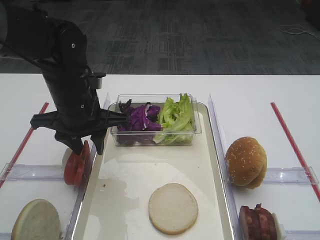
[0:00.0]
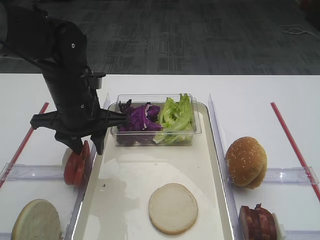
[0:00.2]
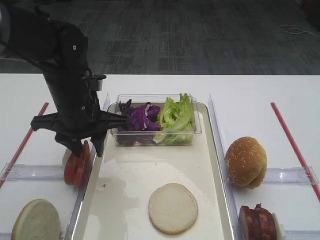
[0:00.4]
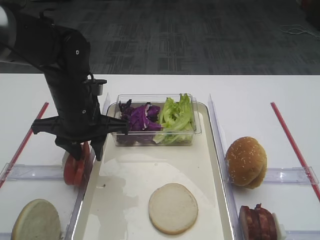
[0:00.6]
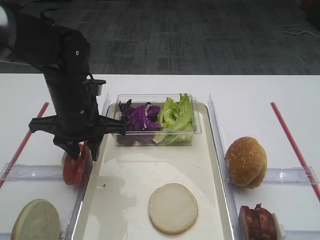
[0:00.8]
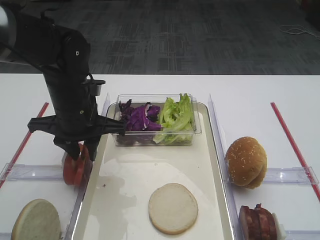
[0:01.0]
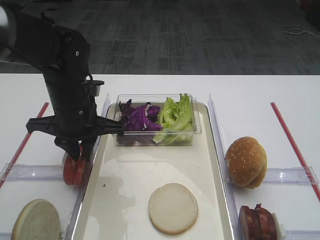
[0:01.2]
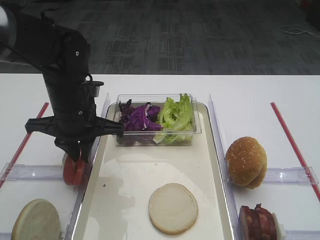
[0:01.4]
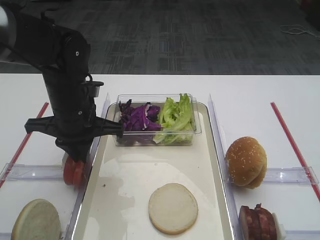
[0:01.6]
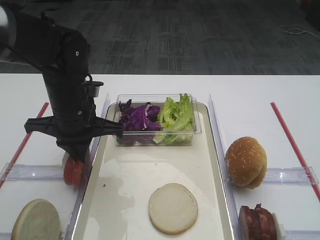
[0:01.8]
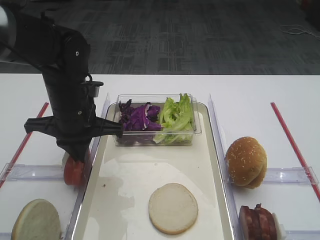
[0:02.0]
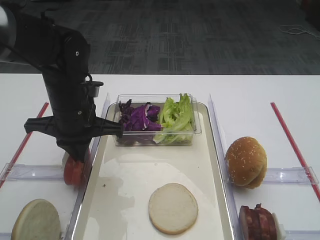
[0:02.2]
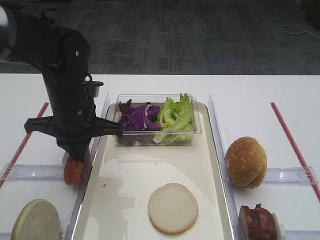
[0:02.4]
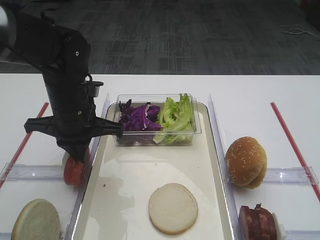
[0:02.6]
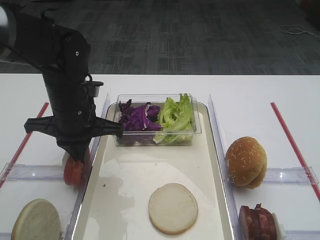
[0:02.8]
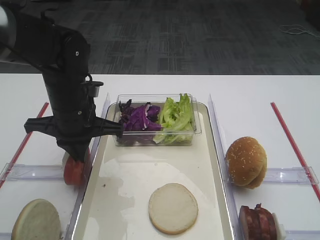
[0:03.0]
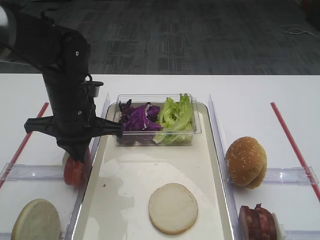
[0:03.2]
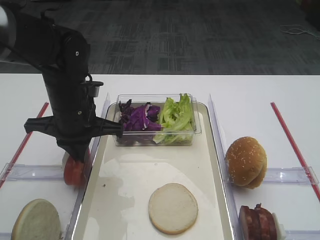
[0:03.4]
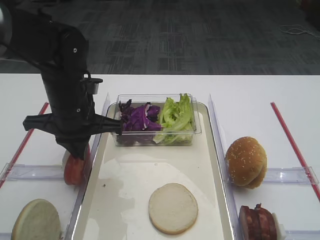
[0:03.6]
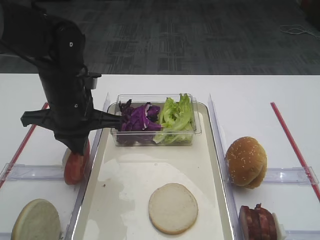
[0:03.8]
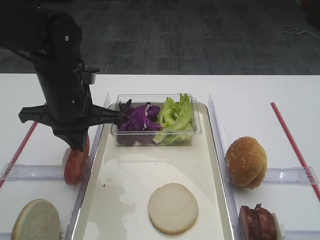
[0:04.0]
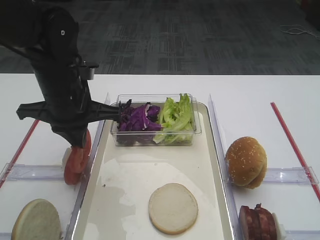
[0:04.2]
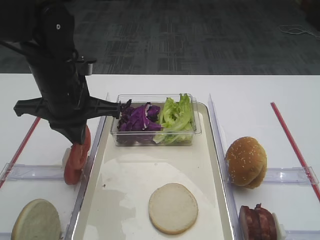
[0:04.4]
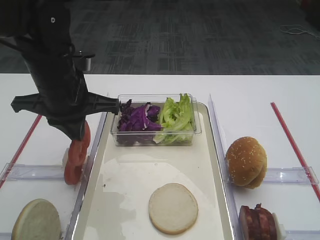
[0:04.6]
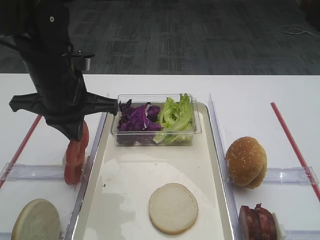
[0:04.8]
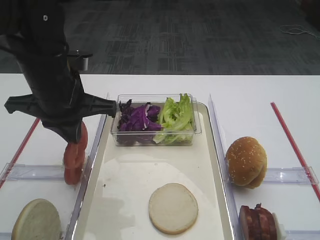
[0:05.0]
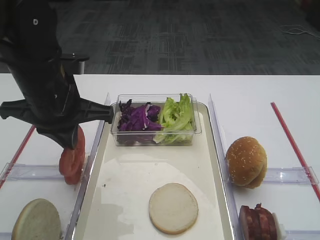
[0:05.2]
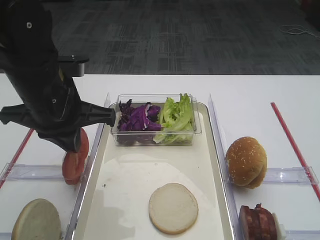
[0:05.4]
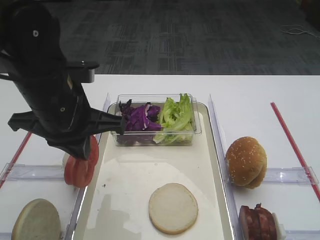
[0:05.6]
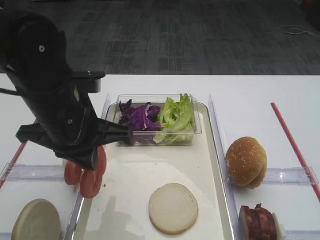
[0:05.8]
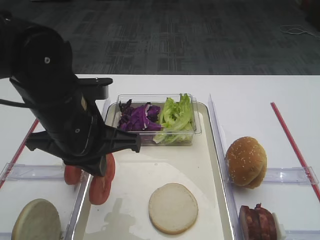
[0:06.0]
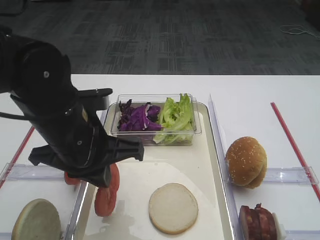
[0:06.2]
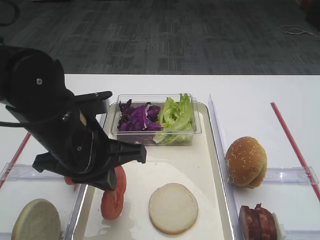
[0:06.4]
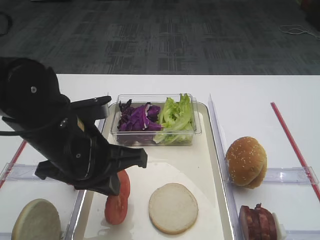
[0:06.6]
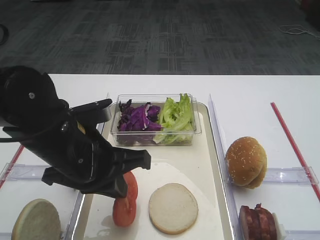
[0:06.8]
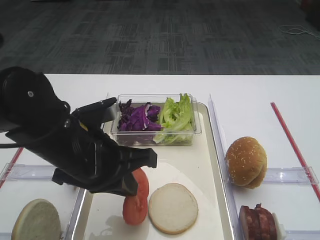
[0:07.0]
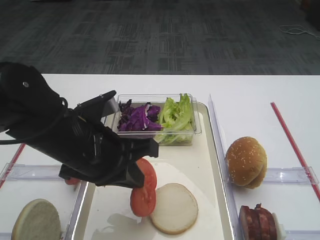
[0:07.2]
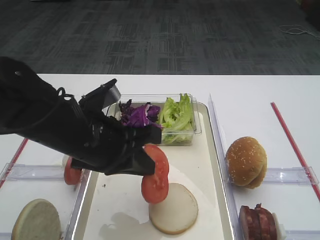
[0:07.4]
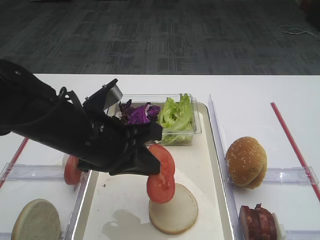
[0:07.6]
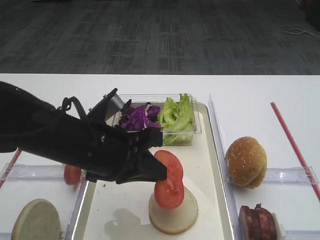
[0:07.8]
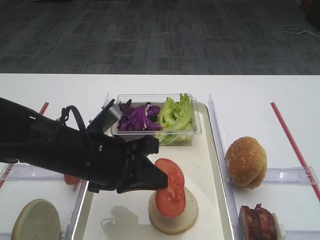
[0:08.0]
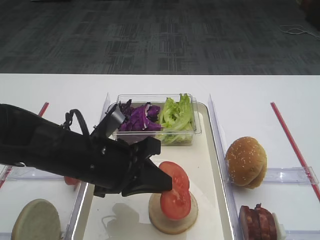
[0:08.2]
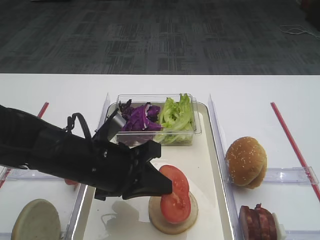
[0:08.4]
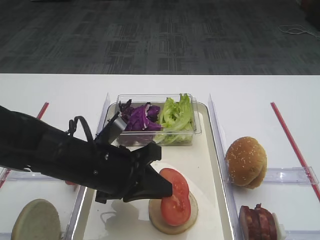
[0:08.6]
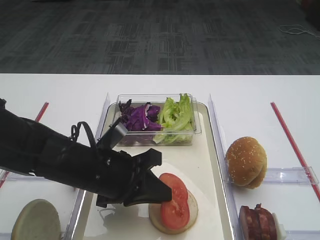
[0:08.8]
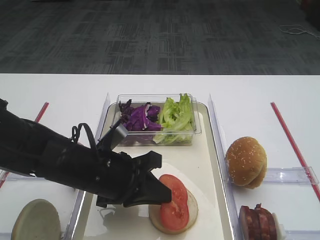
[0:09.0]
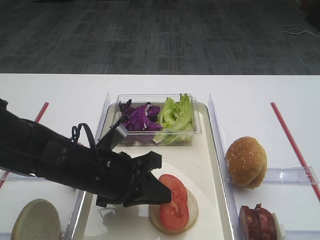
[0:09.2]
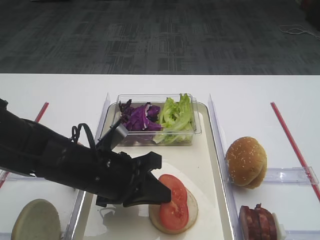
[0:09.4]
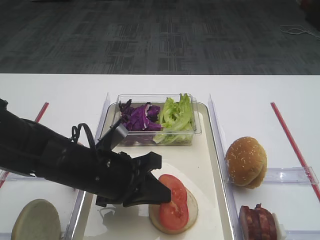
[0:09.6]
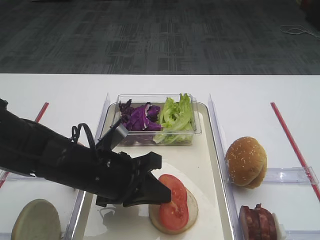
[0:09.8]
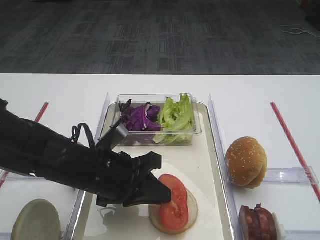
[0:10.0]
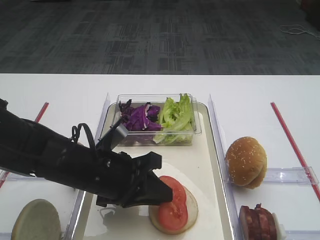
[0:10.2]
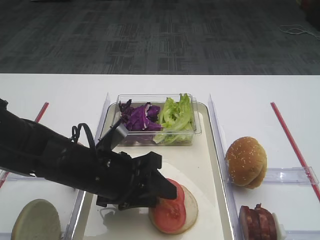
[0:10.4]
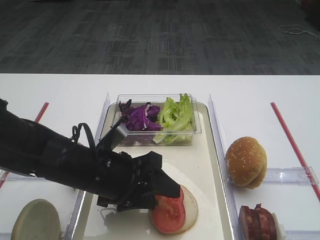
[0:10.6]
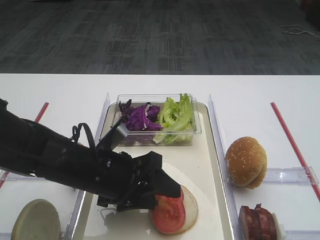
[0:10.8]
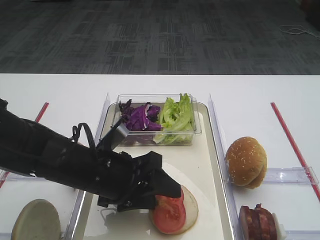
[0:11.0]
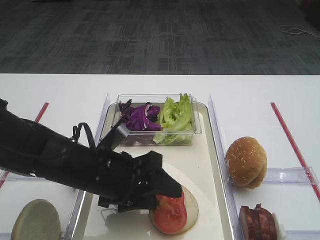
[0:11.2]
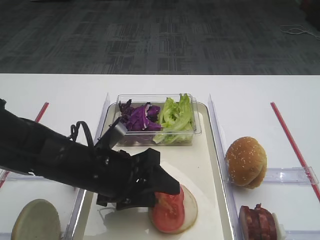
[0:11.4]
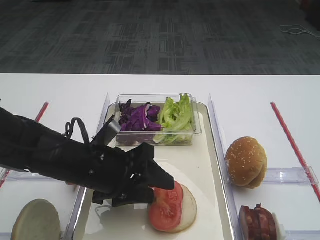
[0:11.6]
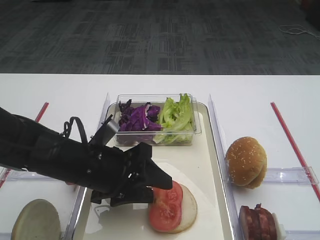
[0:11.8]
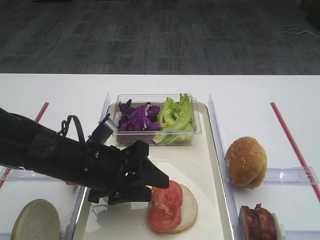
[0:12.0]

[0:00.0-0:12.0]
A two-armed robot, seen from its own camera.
Step, 0:00.0 to 0:04.6: Pick up the tomato slice with the left gripper.
0:00.0 to 0:01.6: The left gripper closes.
0:01.6 to 0:03.0: Both grippers stay about where they are.
0:03.0 to 0:04.4: The grippers stay close to where they were, moving slightly.
0:04.4 to 0:06.0: The left gripper travels backward by roughly 5 cm.
0:07.6 to 0:09.0: The left gripper is displaced downward by some 5 cm.
0:09.0 to 0:10.4: The left gripper opens its fingers.
0:10.4 to 0:12.0: There are only small adjustments of the grippers.

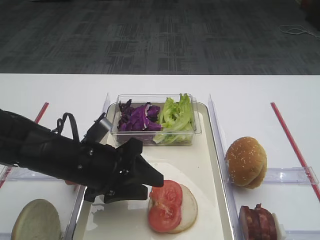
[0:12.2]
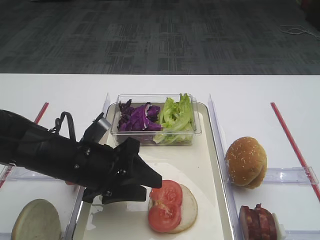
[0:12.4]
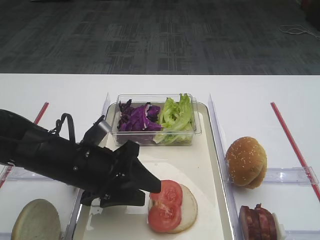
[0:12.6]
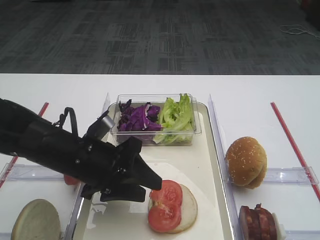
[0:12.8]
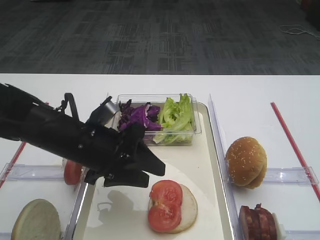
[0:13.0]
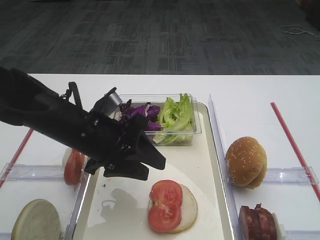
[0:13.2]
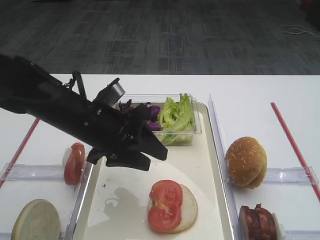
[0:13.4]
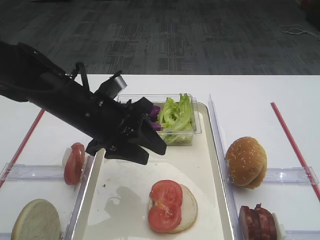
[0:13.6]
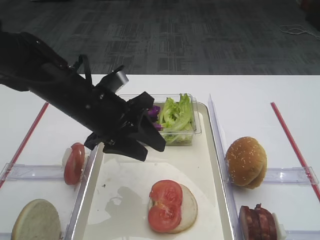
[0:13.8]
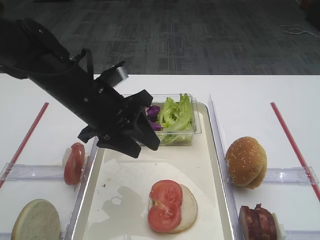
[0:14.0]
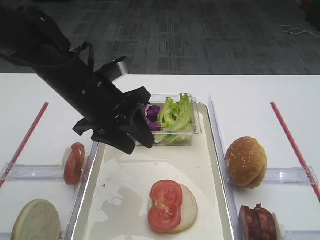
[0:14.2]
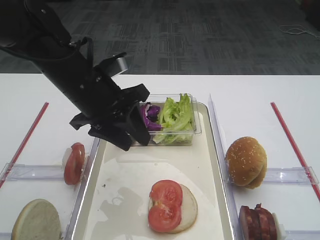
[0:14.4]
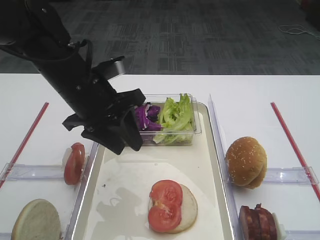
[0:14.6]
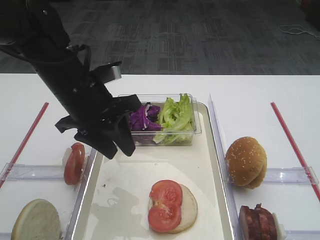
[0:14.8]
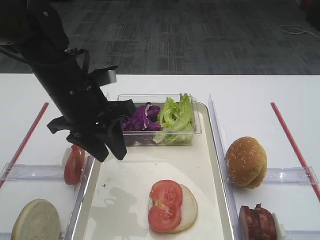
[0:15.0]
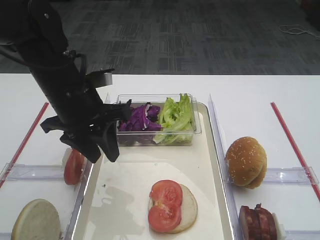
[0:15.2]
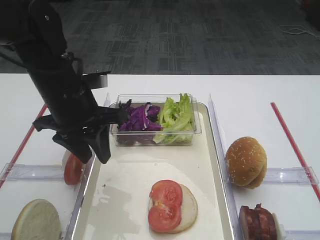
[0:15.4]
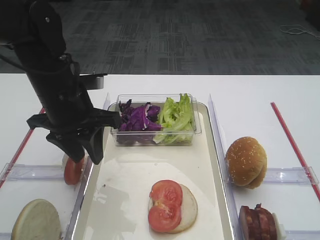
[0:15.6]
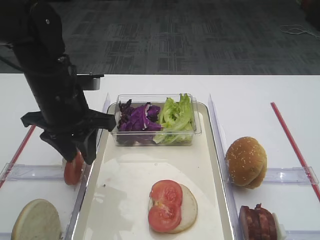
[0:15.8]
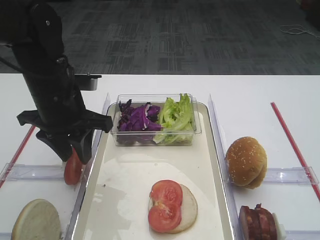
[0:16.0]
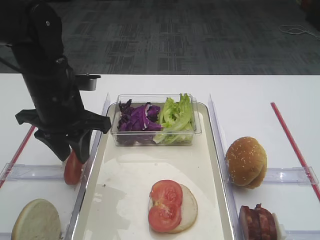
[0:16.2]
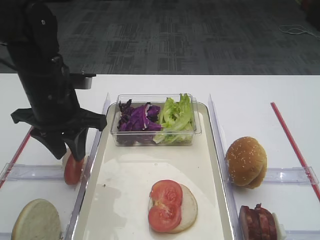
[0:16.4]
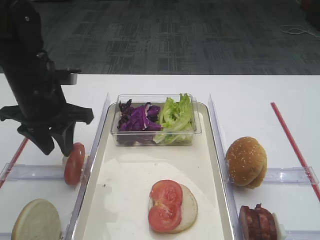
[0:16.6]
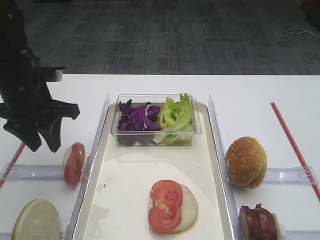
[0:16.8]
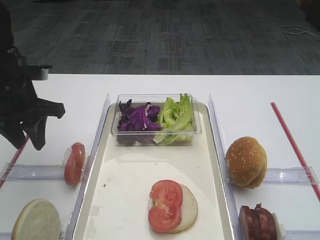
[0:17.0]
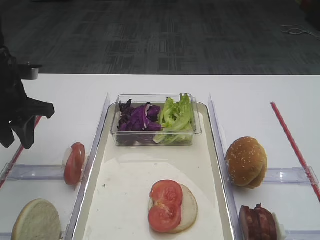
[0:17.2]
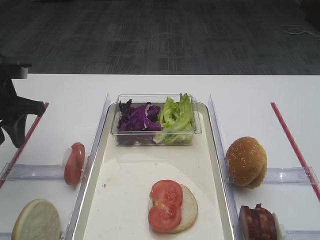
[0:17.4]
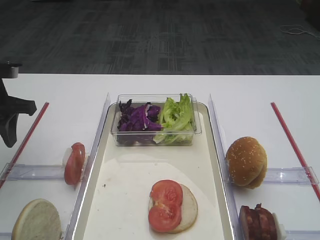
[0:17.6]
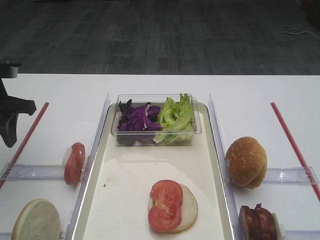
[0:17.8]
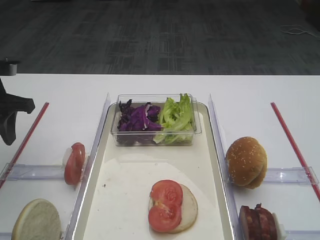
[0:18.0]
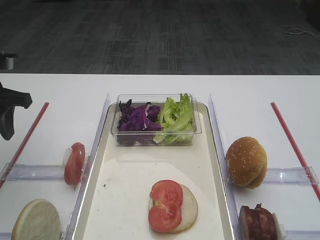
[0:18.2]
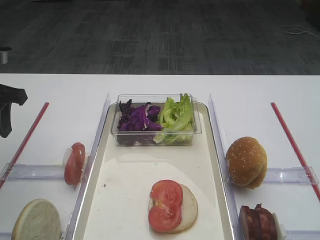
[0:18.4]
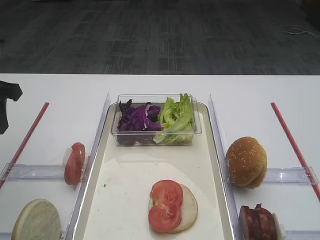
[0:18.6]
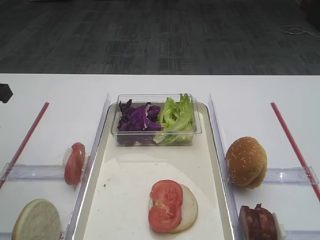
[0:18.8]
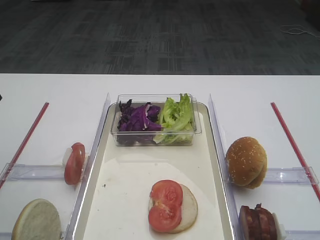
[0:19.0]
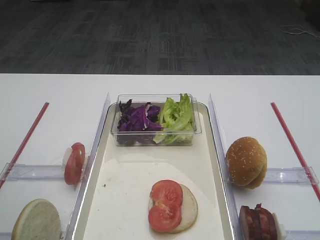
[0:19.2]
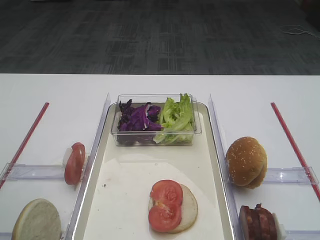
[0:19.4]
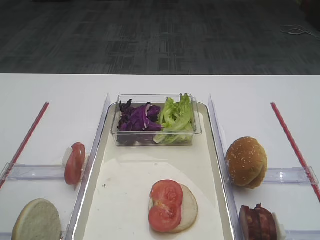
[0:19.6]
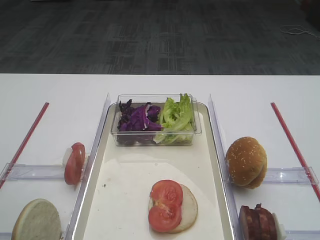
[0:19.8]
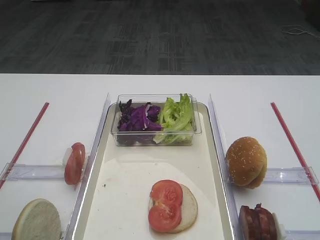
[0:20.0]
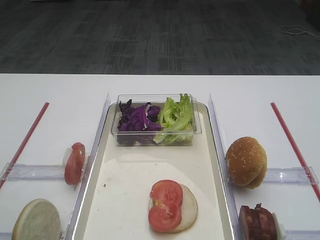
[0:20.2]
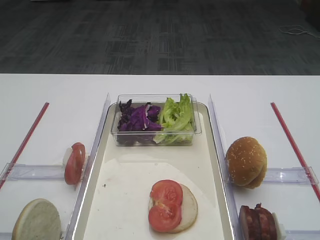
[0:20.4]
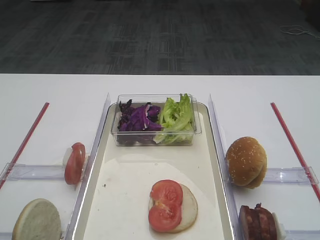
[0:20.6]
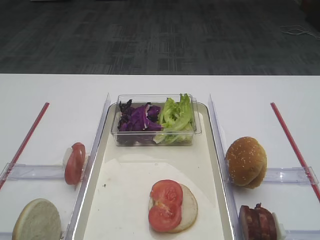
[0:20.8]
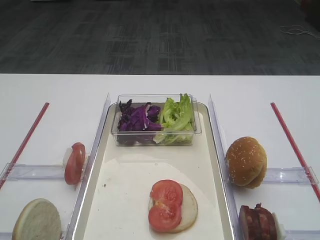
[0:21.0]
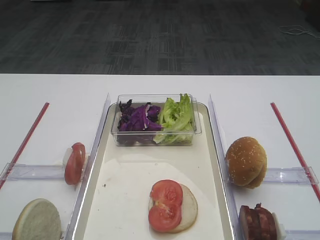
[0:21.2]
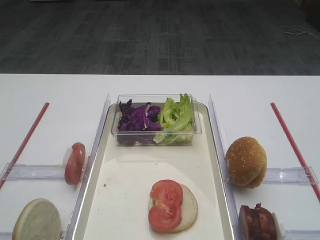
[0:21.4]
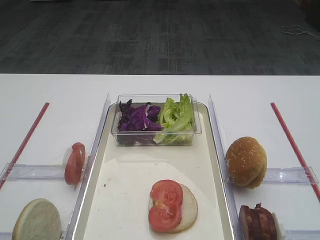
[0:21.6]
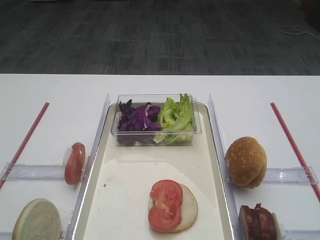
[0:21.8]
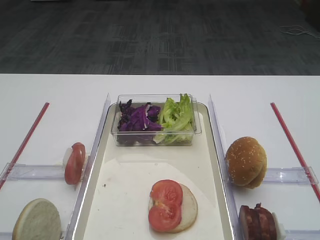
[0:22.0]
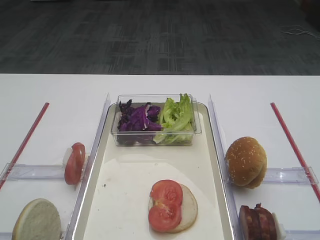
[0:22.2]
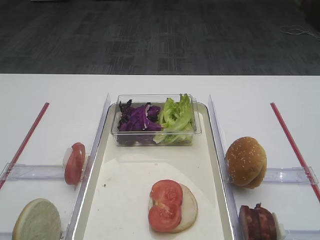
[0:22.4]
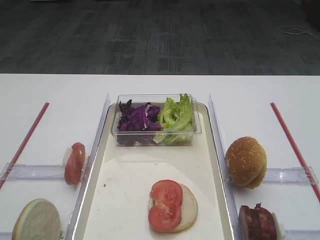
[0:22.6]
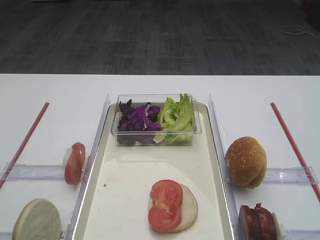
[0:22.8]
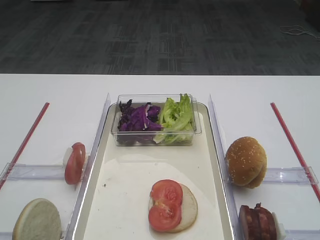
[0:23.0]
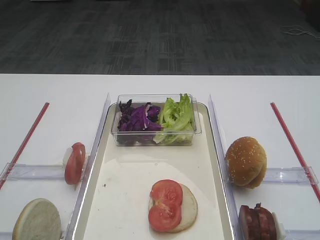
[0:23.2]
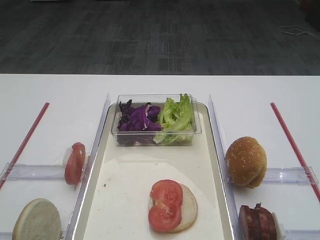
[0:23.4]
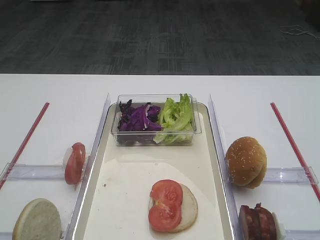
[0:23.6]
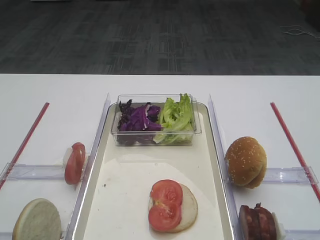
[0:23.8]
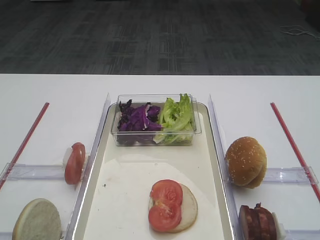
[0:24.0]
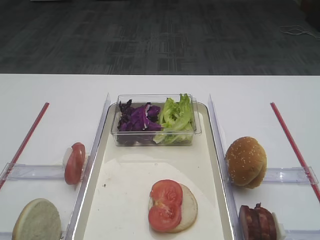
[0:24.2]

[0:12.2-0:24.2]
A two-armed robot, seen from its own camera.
0:12.2 to 0:13.8: The left gripper travels upward and forward by approximately 10 cm.
0:15.2 to 0:16.6: The left gripper goes about 5 cm to the left.
0:16.6 to 0:18.2: The left gripper shifts some 10 cm to the left.
0:18.2 to 0:19.8: The left gripper moves backward, approximately 15 cm.
